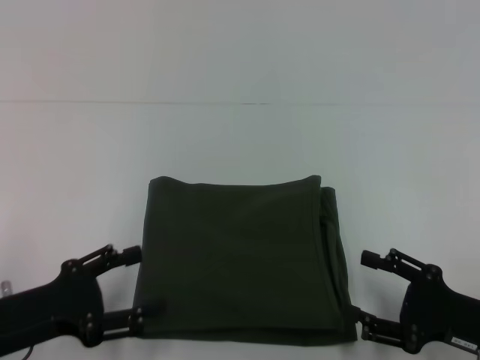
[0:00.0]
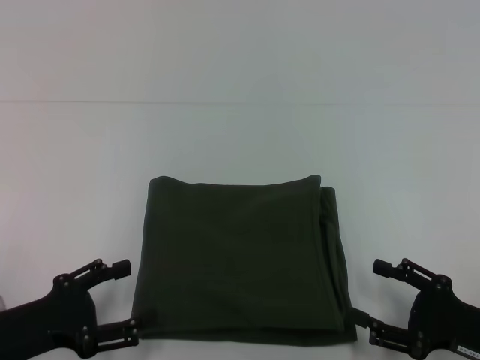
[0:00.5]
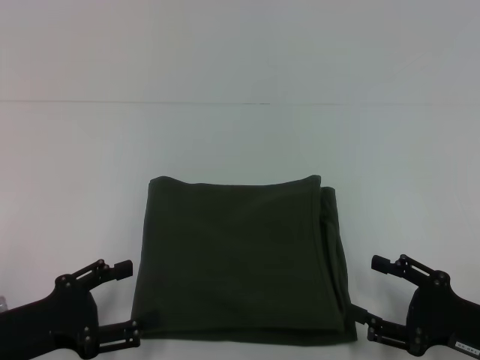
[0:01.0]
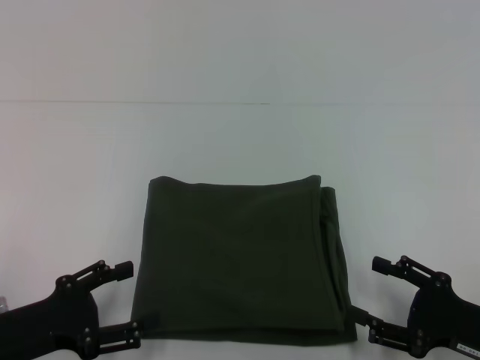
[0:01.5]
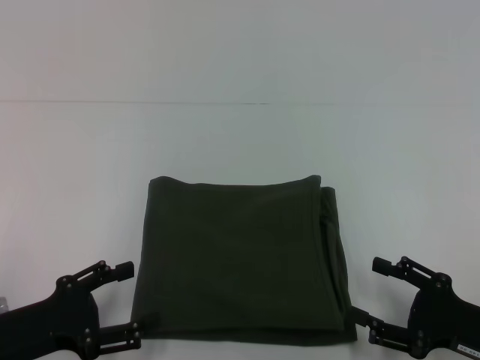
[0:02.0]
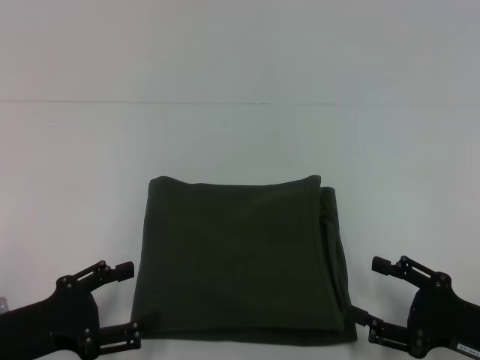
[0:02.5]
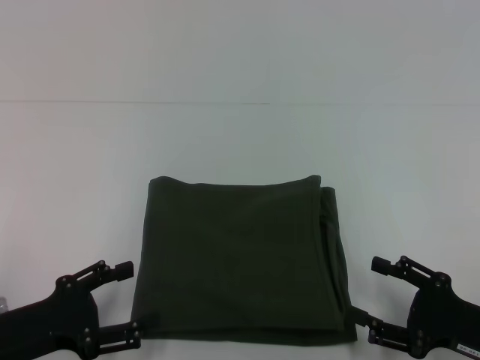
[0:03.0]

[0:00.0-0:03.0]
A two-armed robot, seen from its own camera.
0:00.0 to 0:01.5: The grippers make only small movements.
0:01.5 to 0:03.0: Neither gripper changes place.

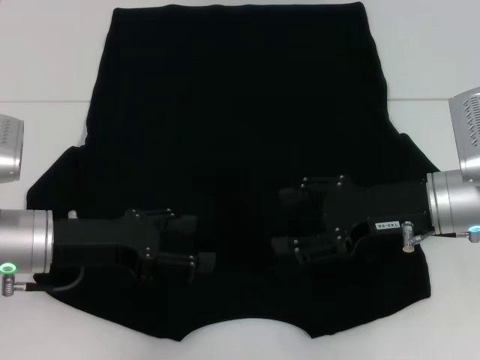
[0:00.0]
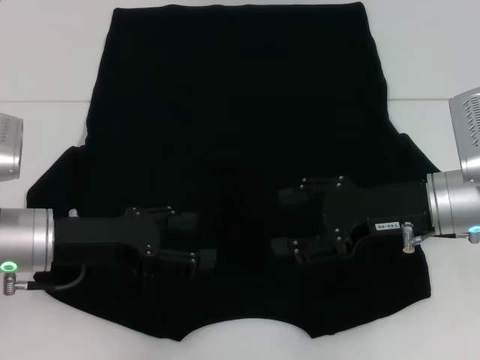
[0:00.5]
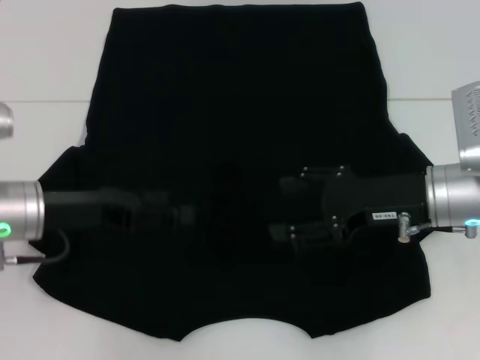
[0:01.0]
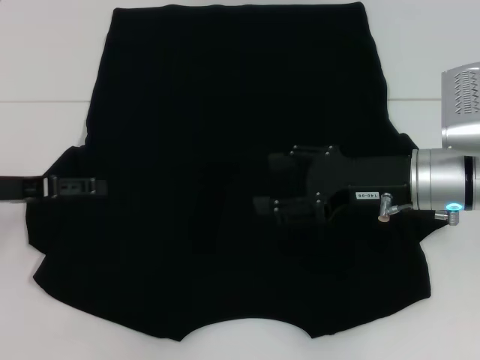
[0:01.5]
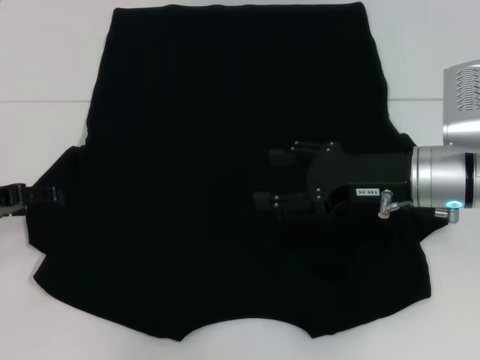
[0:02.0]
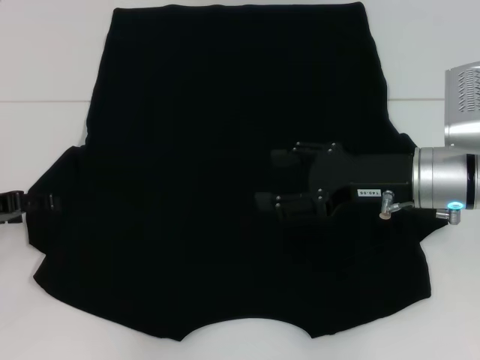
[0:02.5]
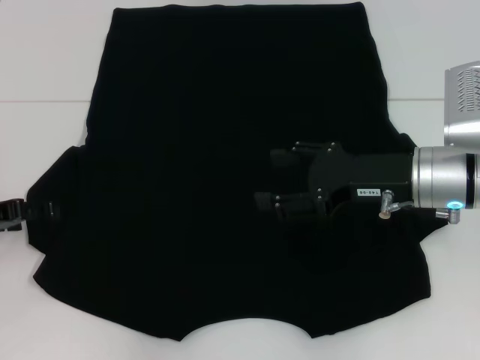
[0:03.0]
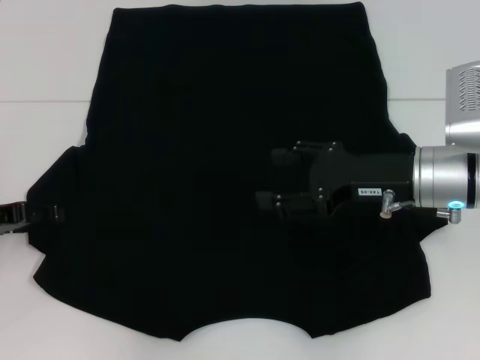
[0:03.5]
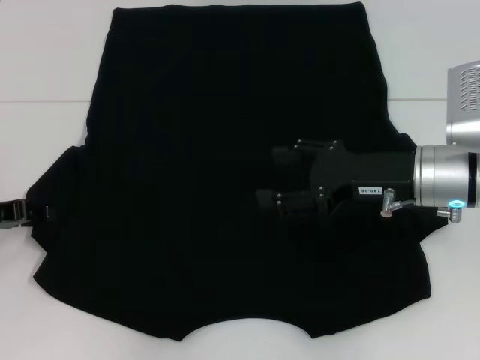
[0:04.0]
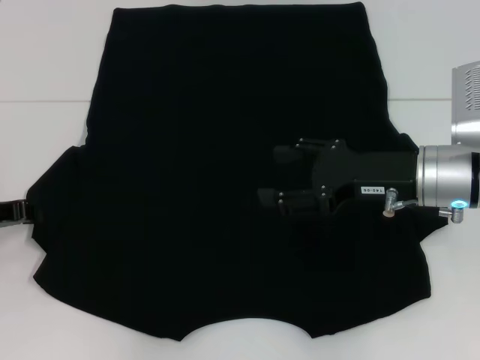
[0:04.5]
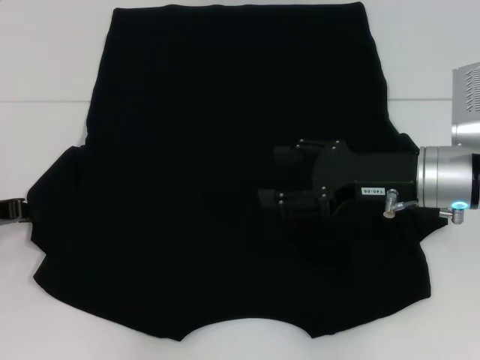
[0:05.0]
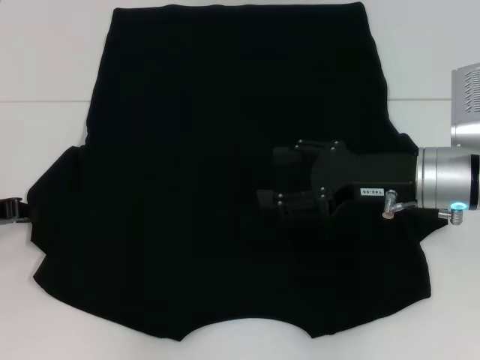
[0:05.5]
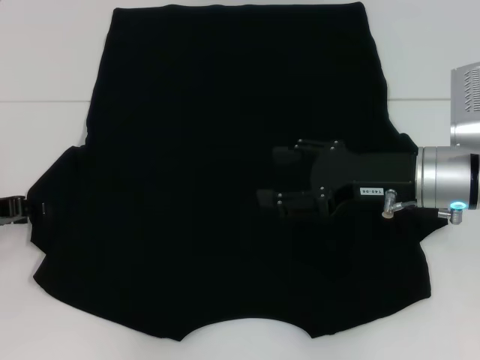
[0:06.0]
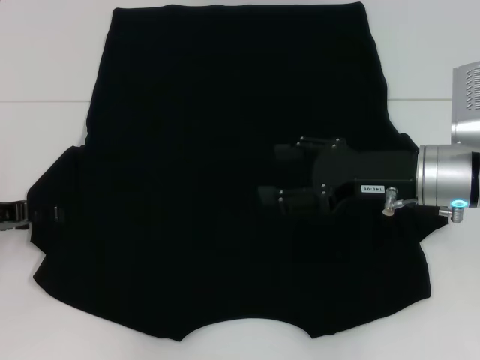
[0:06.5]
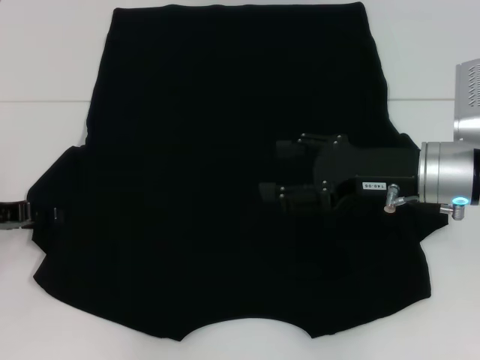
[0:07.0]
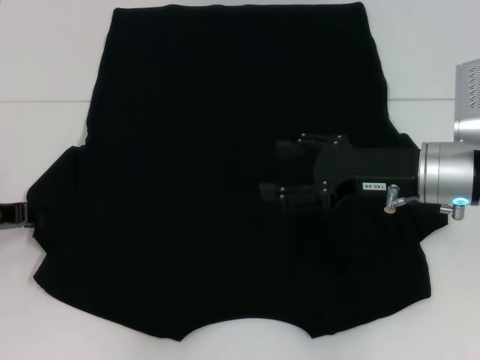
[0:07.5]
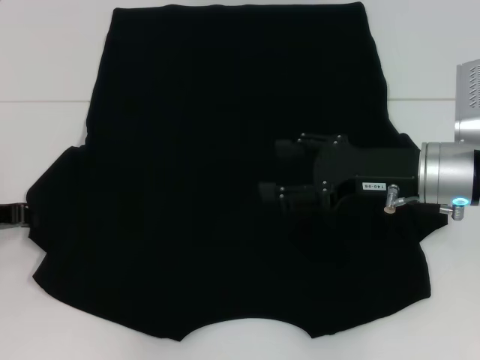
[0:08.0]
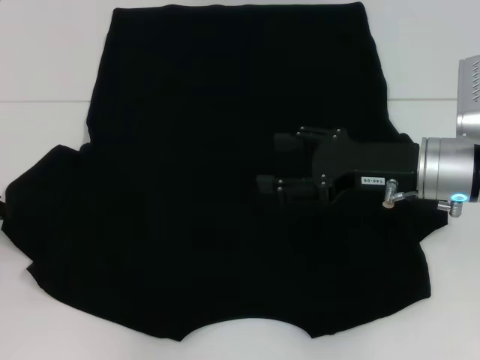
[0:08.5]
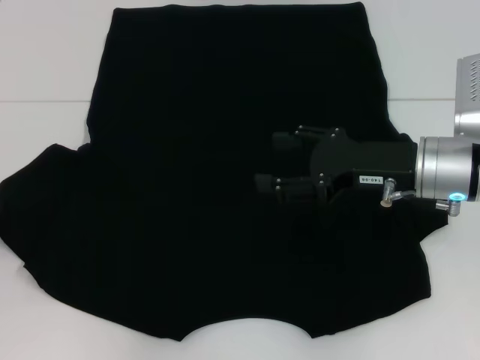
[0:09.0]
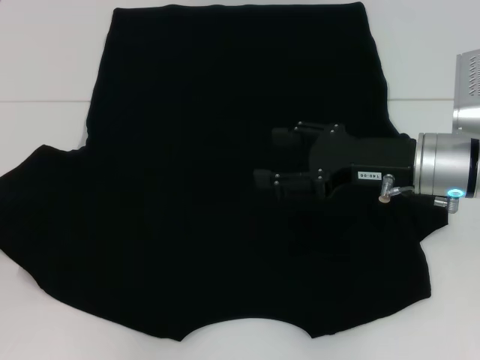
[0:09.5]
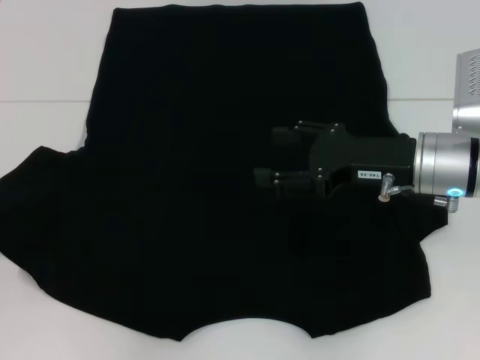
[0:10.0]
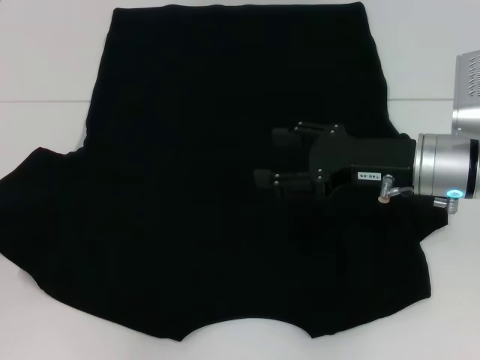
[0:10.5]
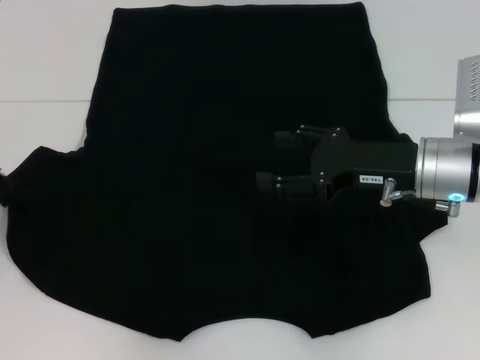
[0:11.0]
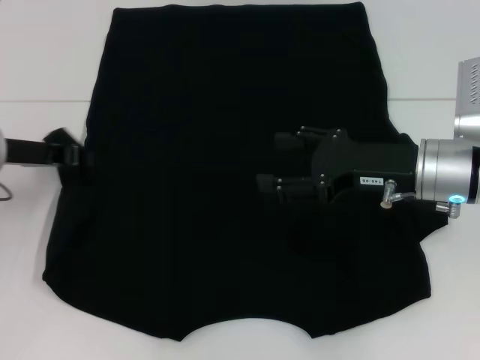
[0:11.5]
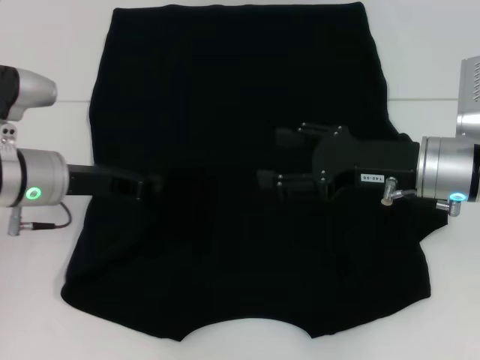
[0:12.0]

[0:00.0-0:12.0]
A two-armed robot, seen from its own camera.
0:00.0 to 0:02.0: The left gripper travels to the left by roughly 10 cm.
0:02.0 to 0:04.0: The grippers make only small movements.
0:04.0 to 0:06.0: Both grippers stay about where they are.
0:08.0 to 0:10.0: The grippers stay close to where they were, moving slightly.
0:10.0 to 0:12.0: The left gripper goes roughly 15 cm to the right.

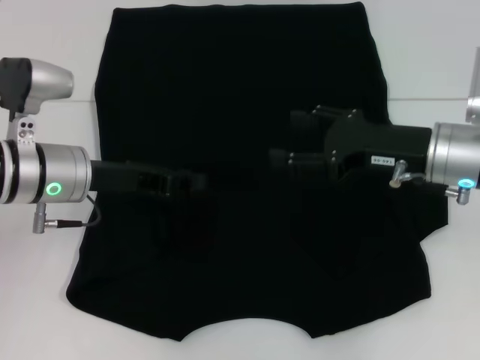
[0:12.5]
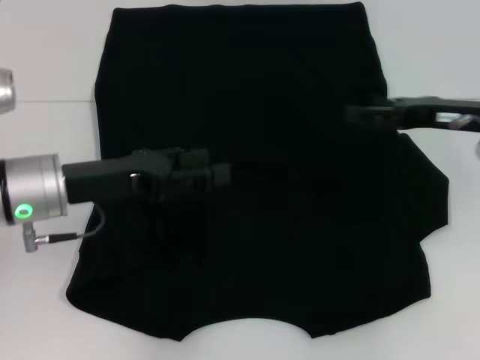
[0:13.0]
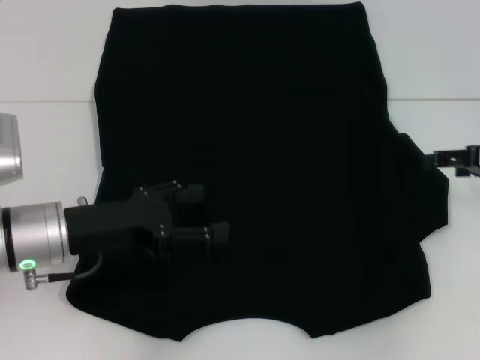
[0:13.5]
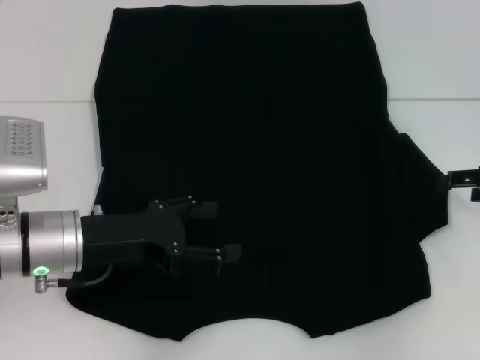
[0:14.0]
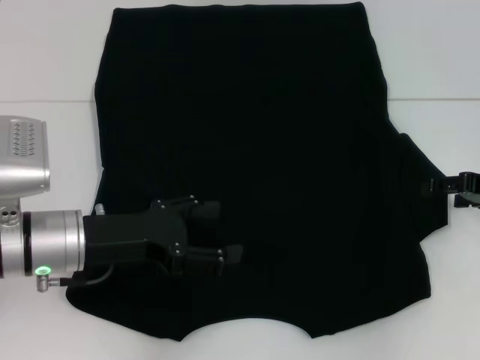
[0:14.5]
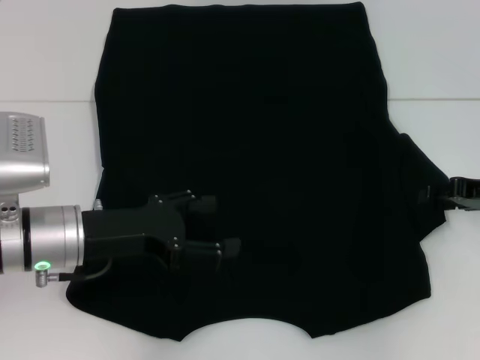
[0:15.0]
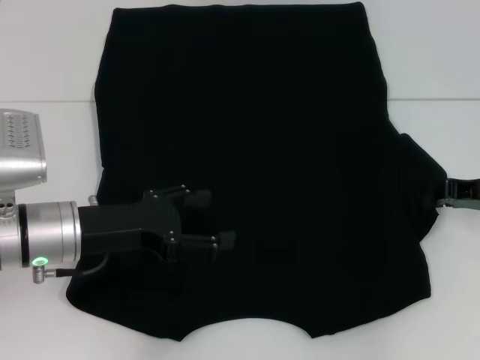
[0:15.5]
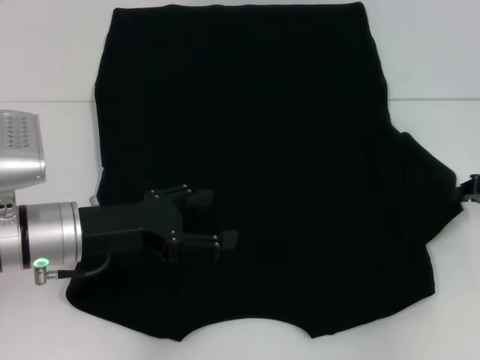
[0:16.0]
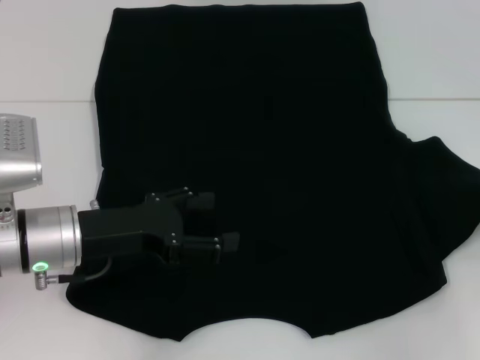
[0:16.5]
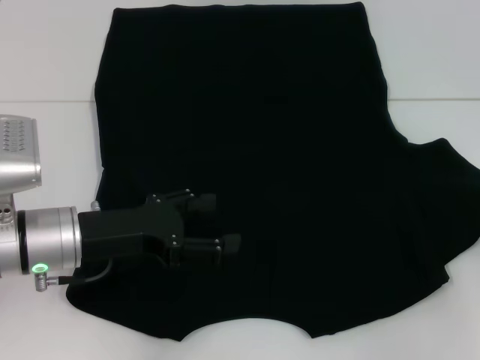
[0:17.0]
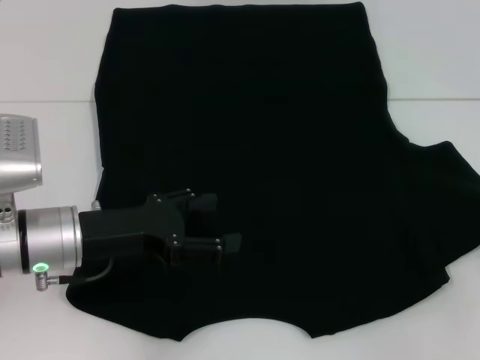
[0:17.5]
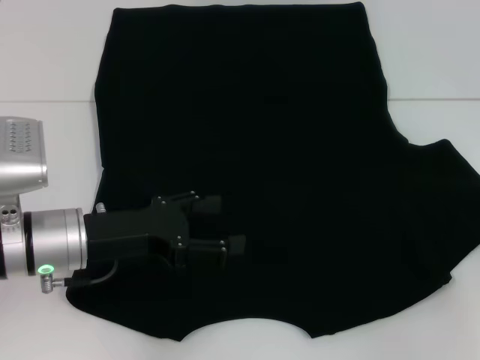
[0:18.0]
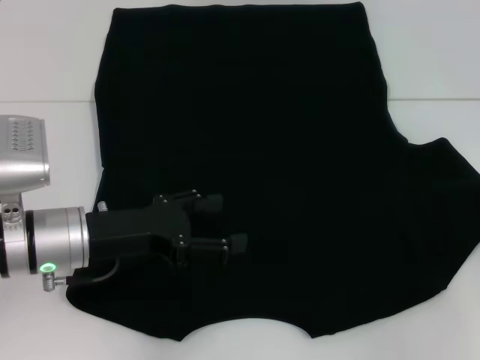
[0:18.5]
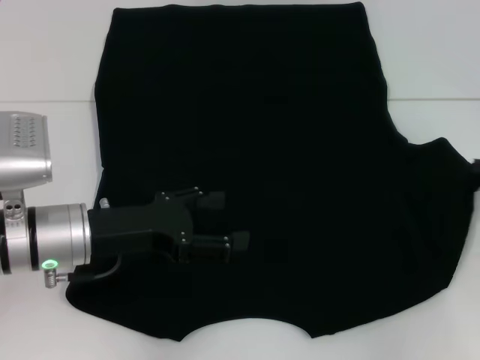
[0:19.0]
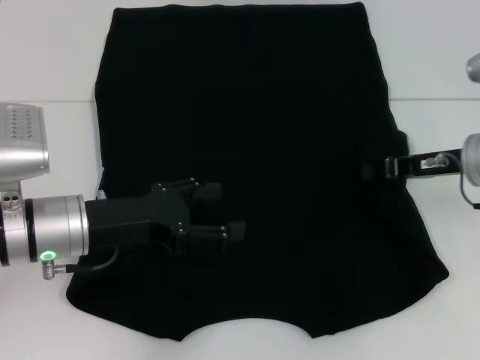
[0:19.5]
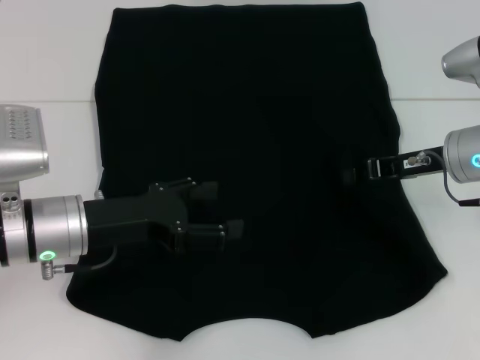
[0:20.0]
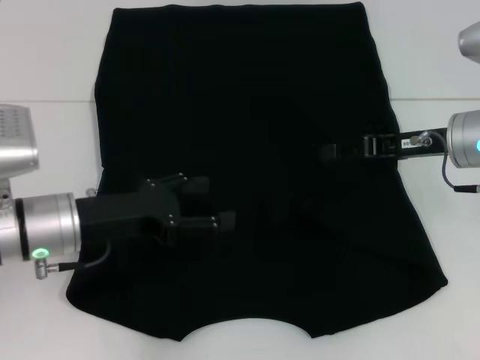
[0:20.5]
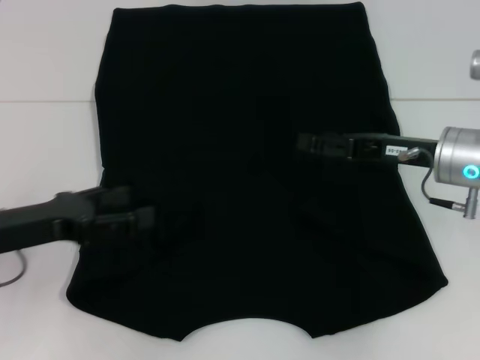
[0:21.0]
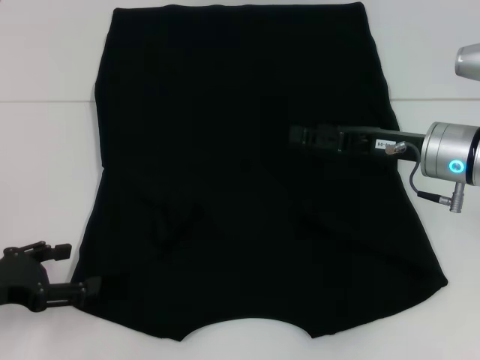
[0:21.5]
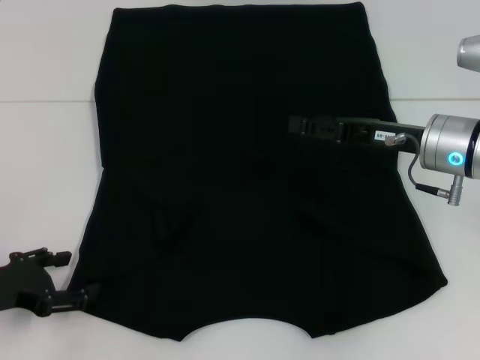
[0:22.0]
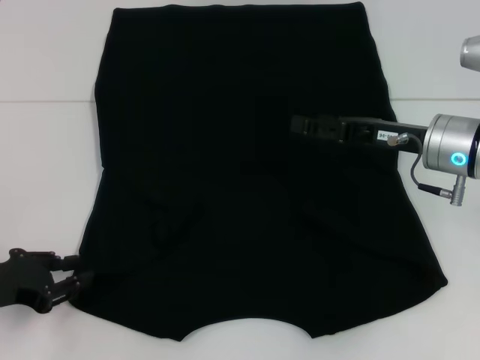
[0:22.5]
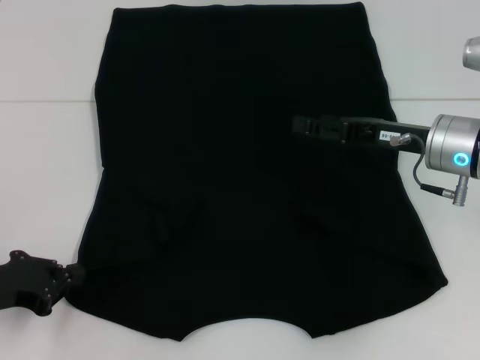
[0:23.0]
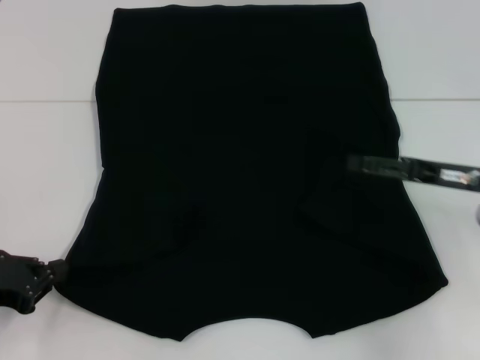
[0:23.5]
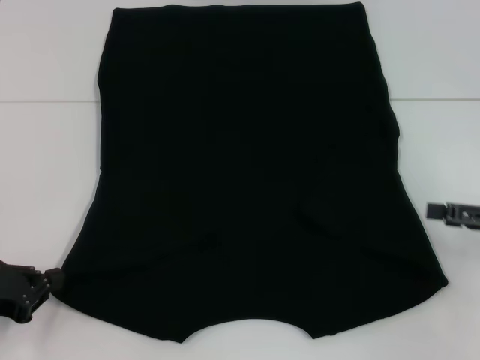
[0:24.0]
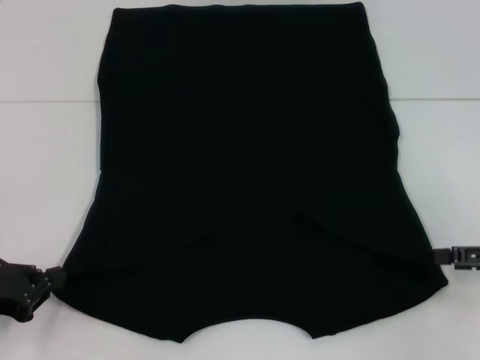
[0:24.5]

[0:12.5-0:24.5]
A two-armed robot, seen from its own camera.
Step, 0:12.5 to 0:20.0: Fold the bottom right sleeve with your right hand.
0:12.5 to 0:14.5: The left gripper moves backward, some 5 cm, and opens its fingers. The right gripper travels to the right by approximately 15 cm.
0:14.5 to 0:16.5: The right gripper shifts by roughly 5 cm, and closes up.
0:16.5 to 0:18.5: The grippers move only a little.
0:18.5 to 0:20.5: The right gripper goes some 15 cm to the left, and opens its fingers.
0:20.5 to 0:22.5: The right gripper opens. The left gripper heads to the left and backward, covering some 10 cm.
0:22.5 to 0:24.5: The right gripper shifts roughly 20 cm to the right and backward; the left gripper closes.
